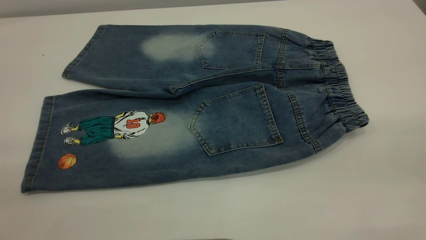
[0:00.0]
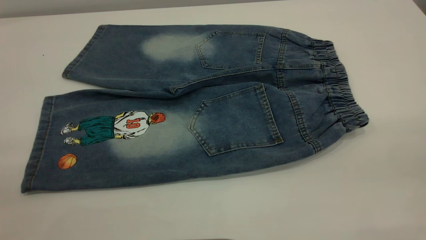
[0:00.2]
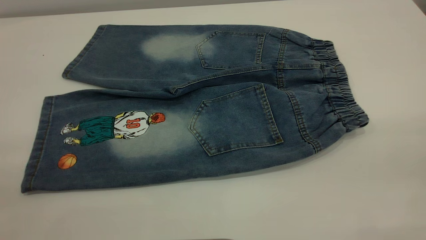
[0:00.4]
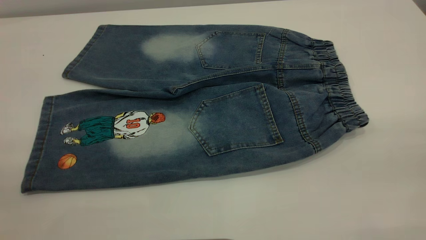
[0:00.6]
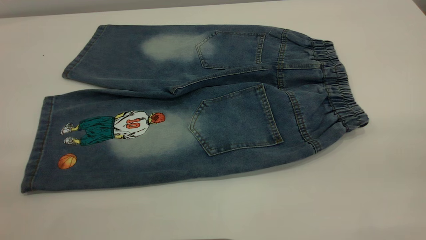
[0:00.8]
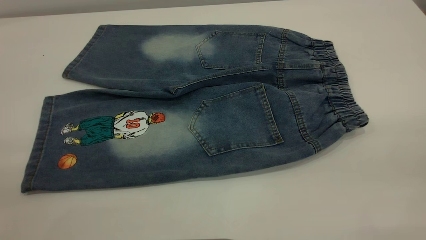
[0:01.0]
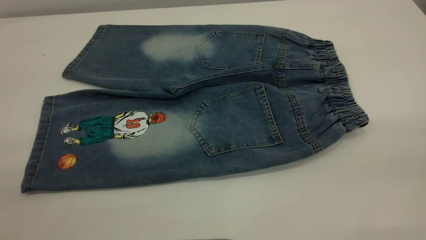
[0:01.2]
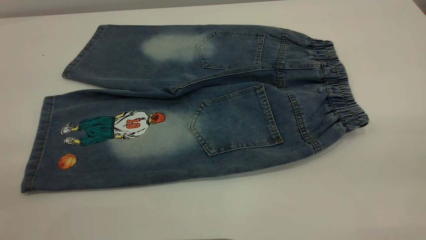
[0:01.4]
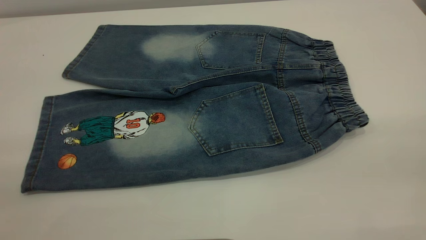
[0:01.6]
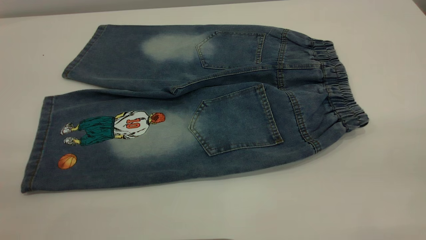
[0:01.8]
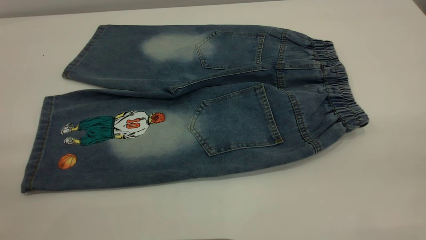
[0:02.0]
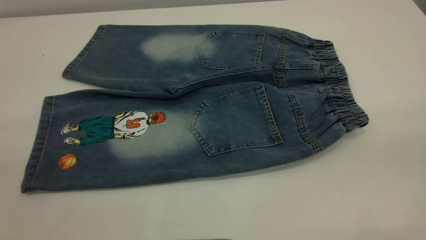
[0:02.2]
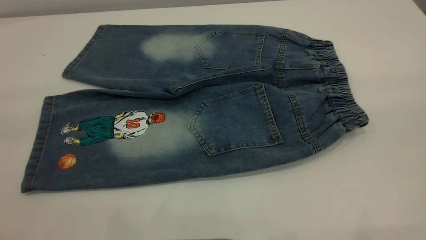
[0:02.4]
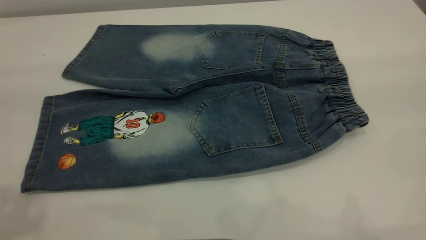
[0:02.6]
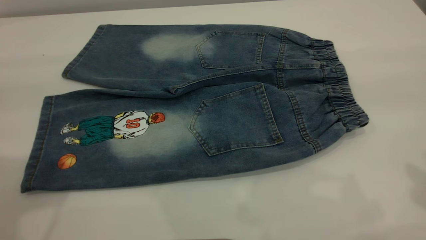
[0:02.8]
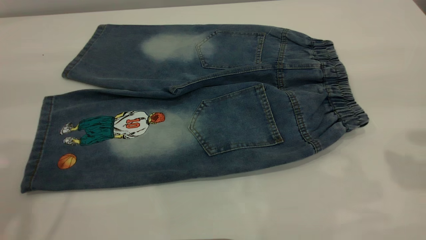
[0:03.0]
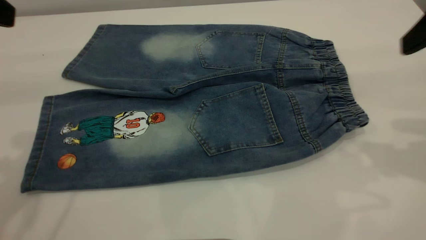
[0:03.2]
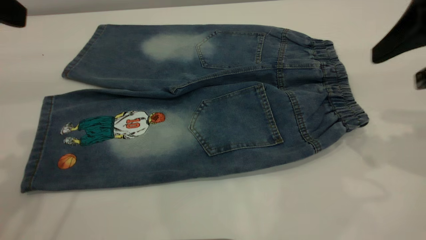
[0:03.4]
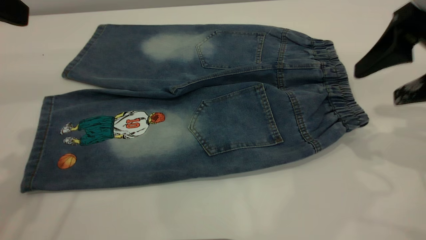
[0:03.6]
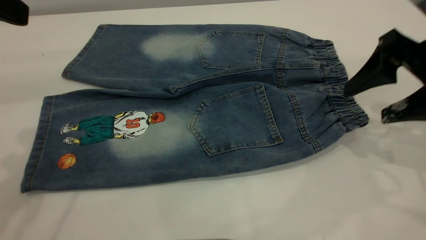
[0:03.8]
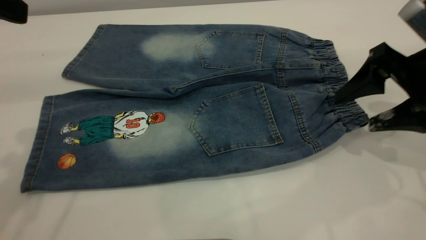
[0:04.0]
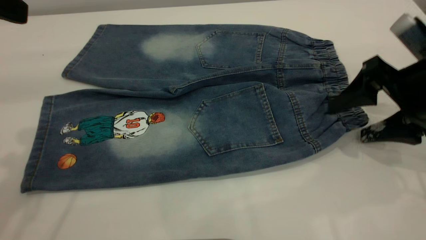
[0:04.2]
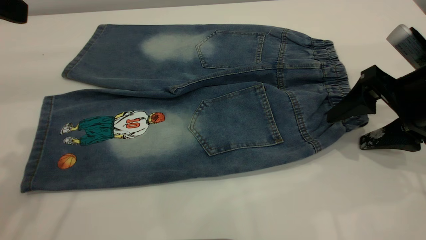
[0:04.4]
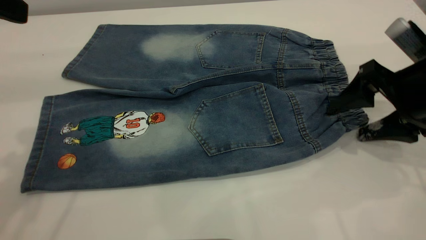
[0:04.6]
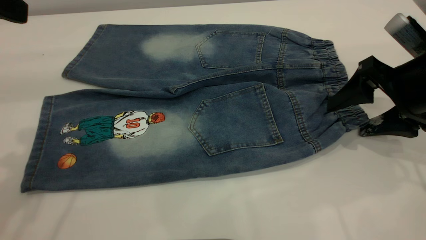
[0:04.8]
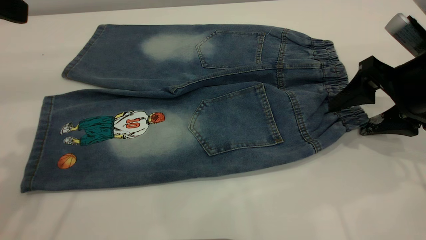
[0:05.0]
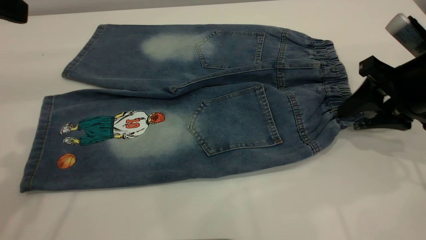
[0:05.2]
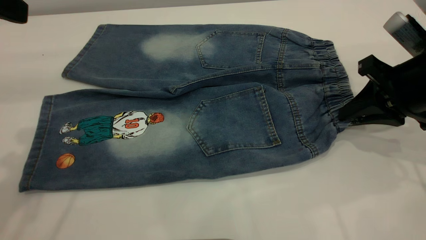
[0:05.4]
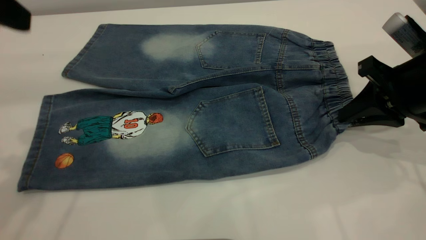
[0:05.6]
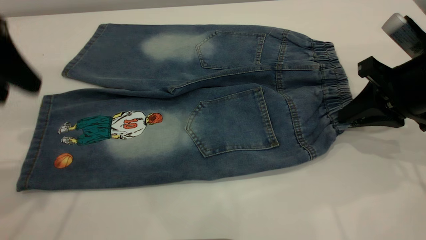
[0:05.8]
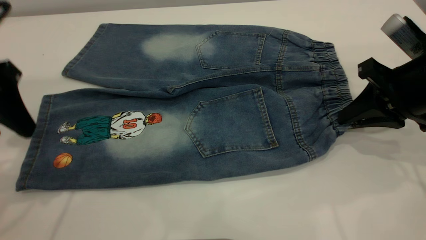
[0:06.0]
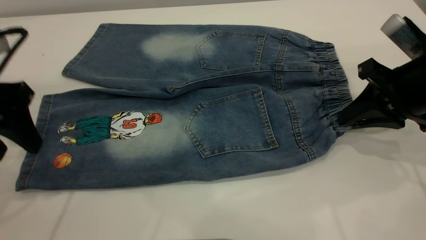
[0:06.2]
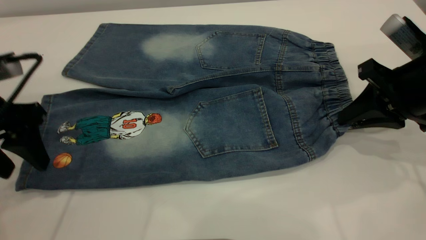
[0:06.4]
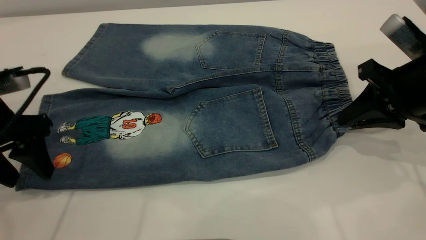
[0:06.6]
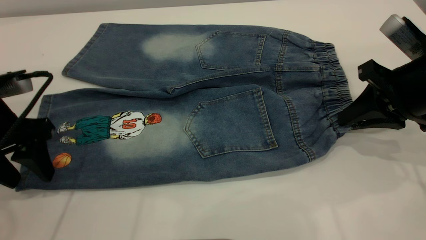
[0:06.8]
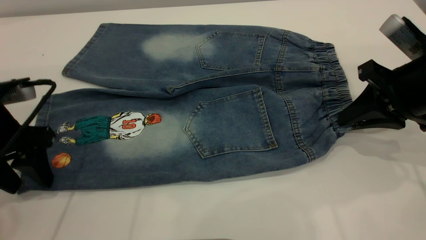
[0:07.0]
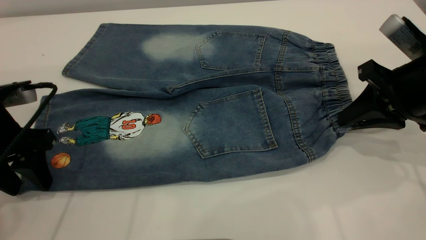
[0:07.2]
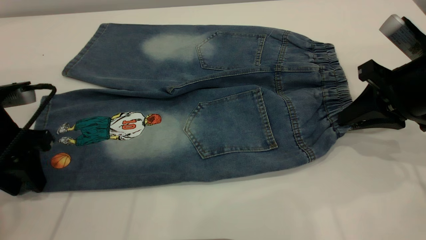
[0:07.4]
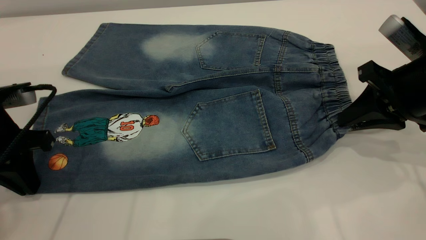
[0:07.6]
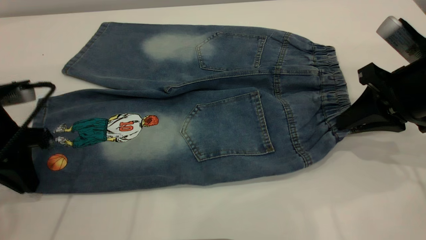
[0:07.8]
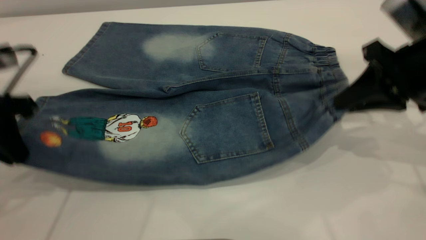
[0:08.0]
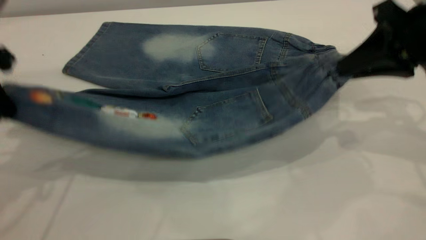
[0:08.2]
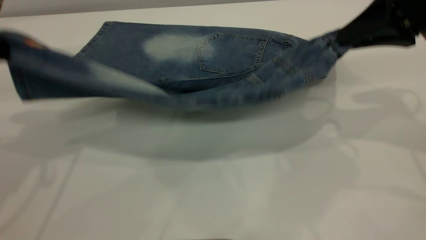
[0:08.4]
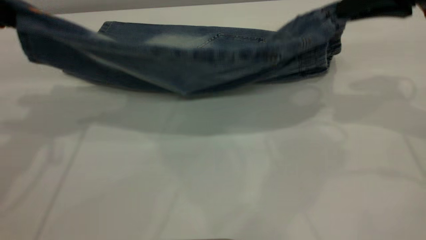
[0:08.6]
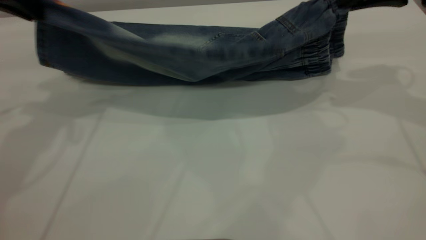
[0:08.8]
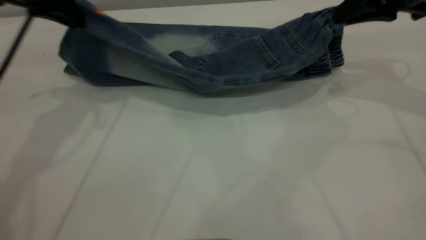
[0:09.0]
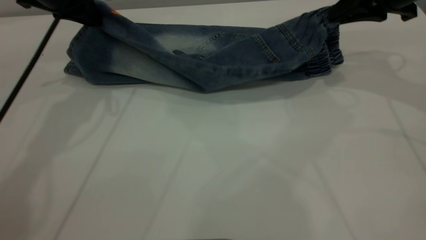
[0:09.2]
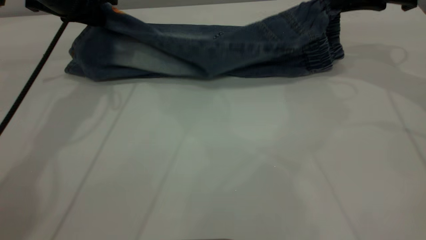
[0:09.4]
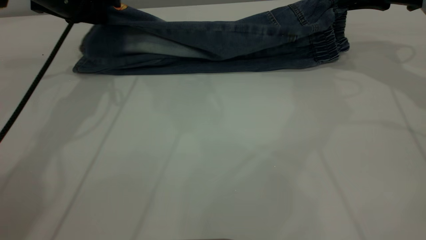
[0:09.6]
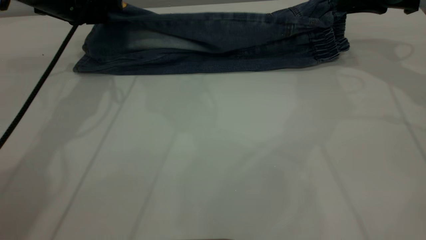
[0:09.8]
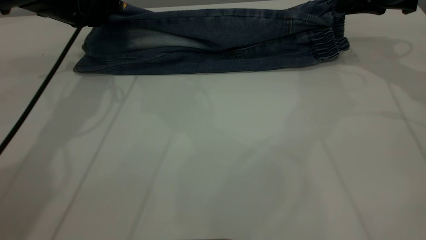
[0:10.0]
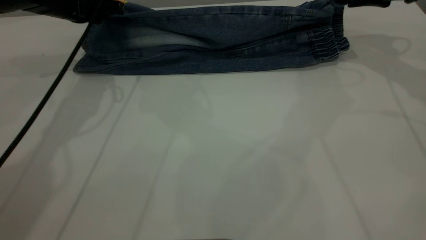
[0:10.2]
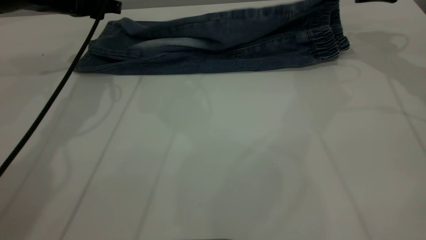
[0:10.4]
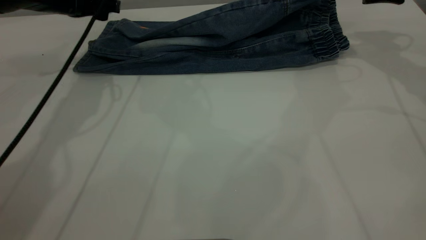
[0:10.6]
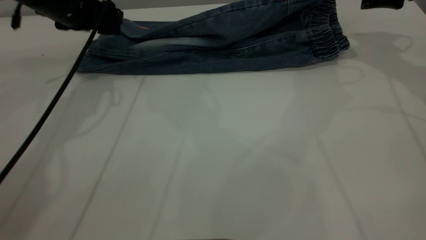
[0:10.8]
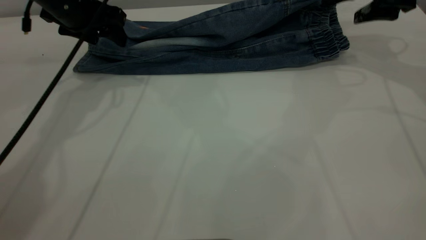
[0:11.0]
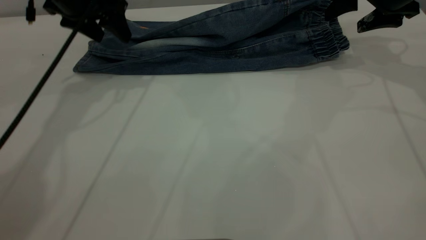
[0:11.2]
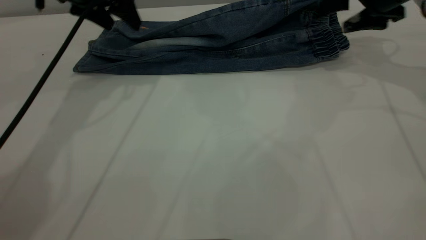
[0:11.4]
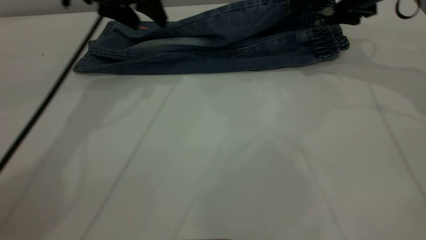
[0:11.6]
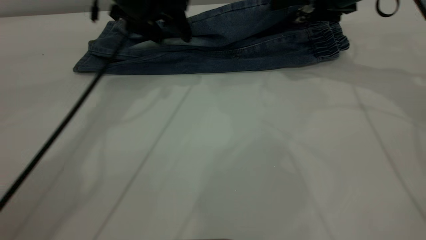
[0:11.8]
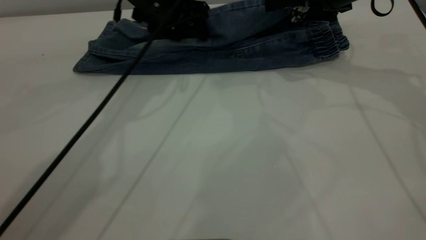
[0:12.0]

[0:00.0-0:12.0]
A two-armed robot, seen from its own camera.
Step, 0:00.0 to 0:10.6: Fold the bottom of the pants upward.
0:00.0 to 0:01.6: Both grippers stay put.
0:03.0 to 0:04.4: The right gripper is displaced downward by about 15 cm.
0:04.4 to 0:06.0: The right gripper closes up, while the left gripper travels downward by approximately 10 cm.
0:06.0 to 0:07.6: The left gripper shifts roughly 10 cm downward, and closes its fingers.
0:07.6 to 0:09.0: Both grippers move forward and upward, about 15 cm.
0:09.0 to 0:10.4: The right gripper heads forward, covering approximately 10 cm, and opens up. Meanwhile the left gripper shifts roughly 10 cm forward and downward, and opens.
0:10.4 to 0:12.0: The left gripper travels to the right by approximately 15 cm, while the right gripper travels to the left by approximately 10 cm.

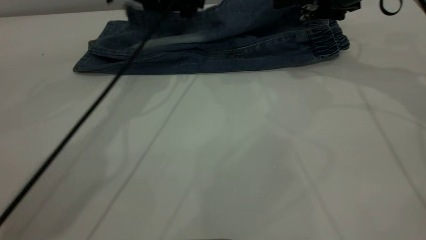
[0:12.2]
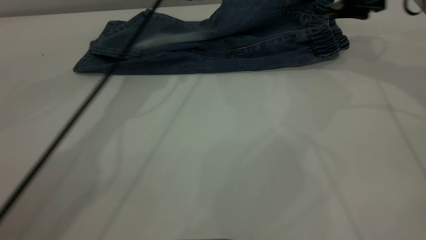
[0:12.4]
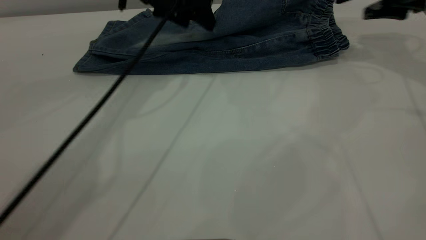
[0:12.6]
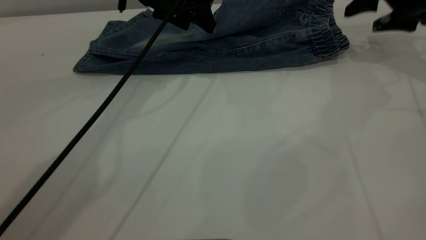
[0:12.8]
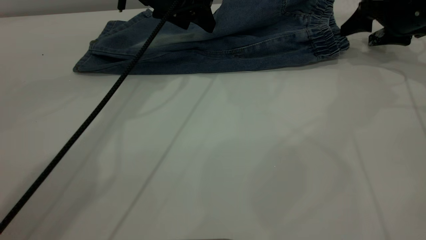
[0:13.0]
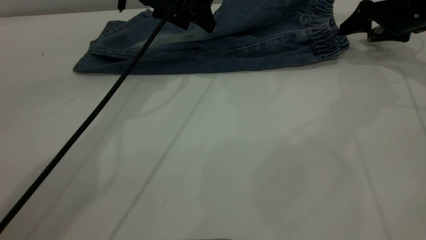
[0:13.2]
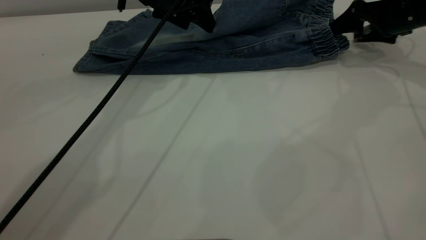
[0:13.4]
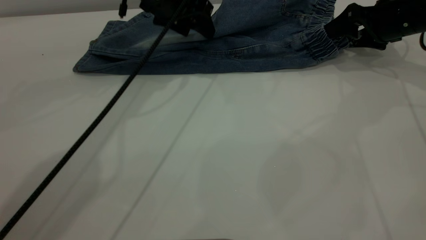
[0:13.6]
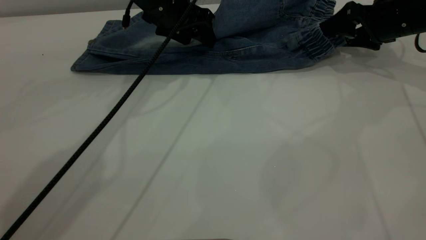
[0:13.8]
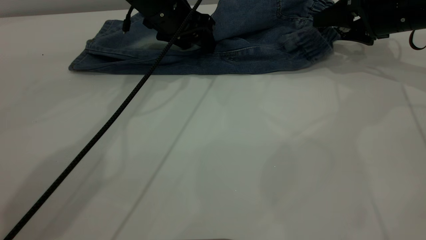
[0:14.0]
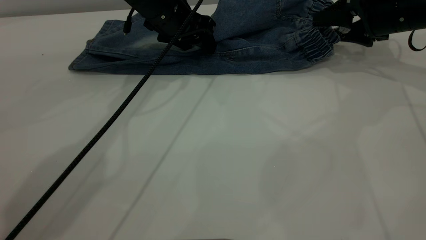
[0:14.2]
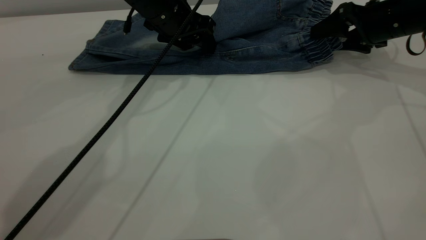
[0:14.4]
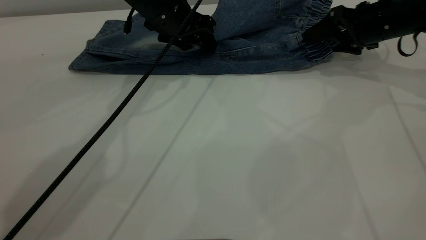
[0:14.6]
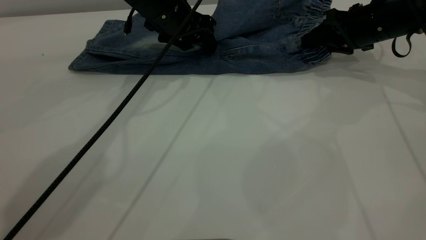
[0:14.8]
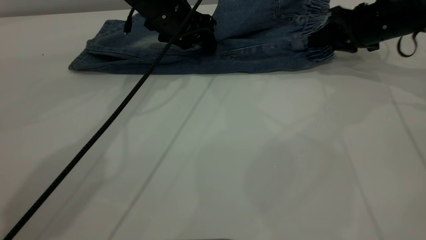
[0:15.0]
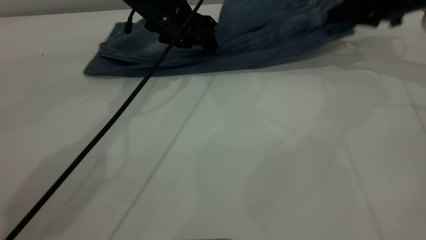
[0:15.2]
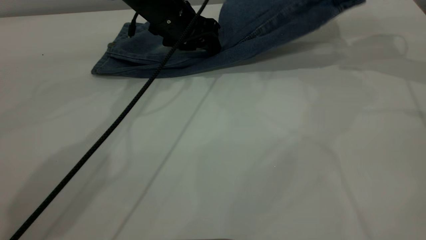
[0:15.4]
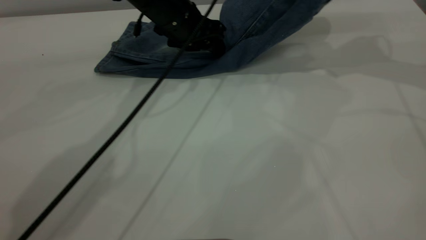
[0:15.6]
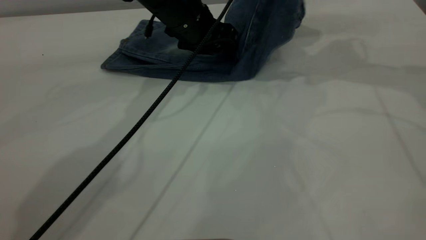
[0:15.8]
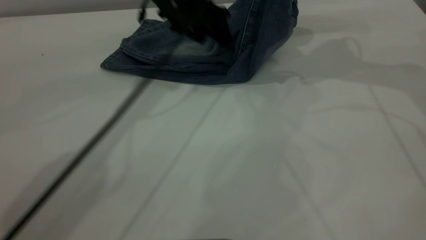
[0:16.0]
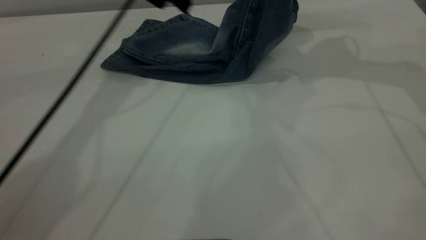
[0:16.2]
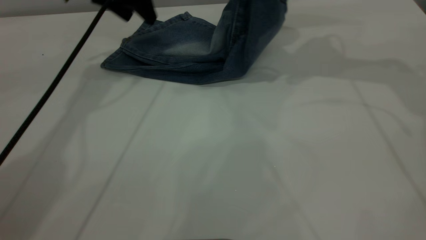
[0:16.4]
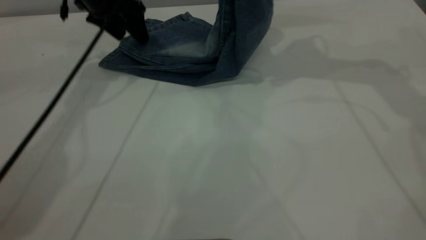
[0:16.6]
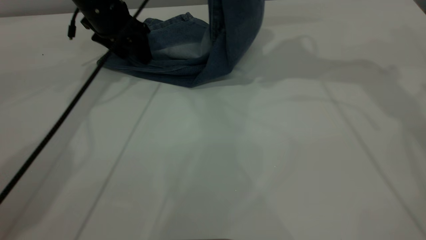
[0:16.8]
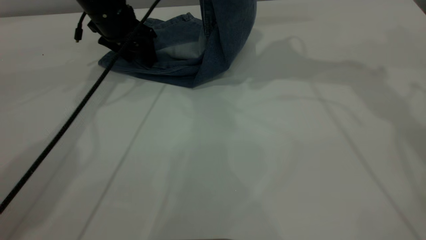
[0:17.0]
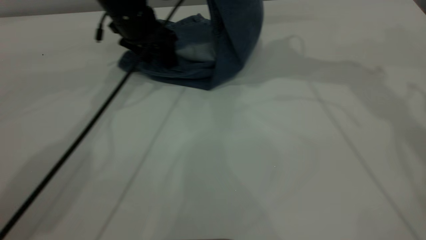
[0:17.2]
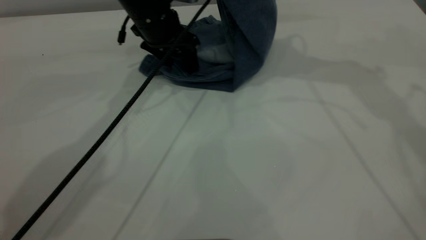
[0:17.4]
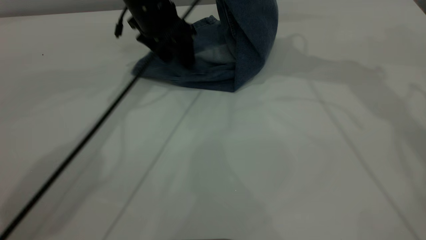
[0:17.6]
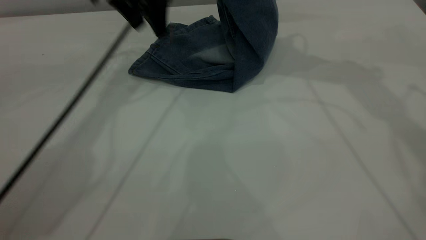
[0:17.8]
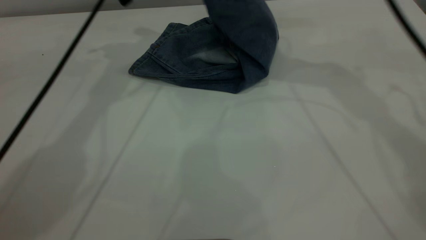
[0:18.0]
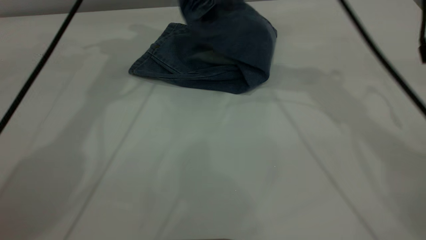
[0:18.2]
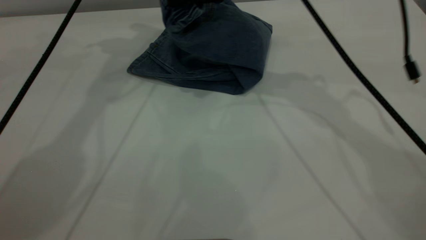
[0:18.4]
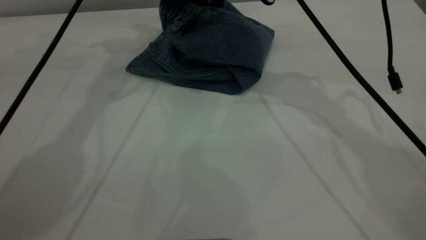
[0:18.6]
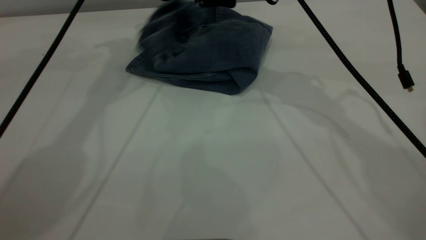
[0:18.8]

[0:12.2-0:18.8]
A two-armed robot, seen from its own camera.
0:12.2 to 0:13.8: The right gripper moves to the right and downward, approximately 10 cm.
0:13.8 to 0:15.4: The right gripper moves upward, approximately 10 cm, and closes up.
0:15.4 to 0:17.2: The right gripper is displaced to the left and upward by roughly 20 cm. The left gripper travels to the left and back again, roughly 10 cm each way.
0:17.2 to 0:18.8: The right gripper is displaced downward and to the left by some 15 cm, and opens up. Meanwhile the left gripper moves upward, roughly 15 cm.
